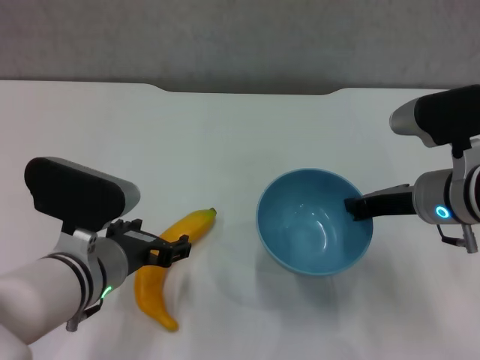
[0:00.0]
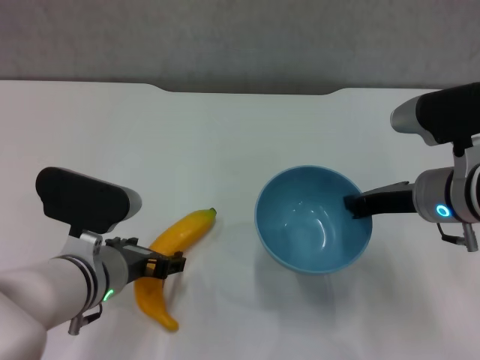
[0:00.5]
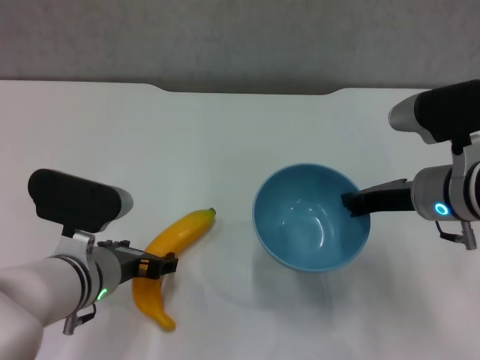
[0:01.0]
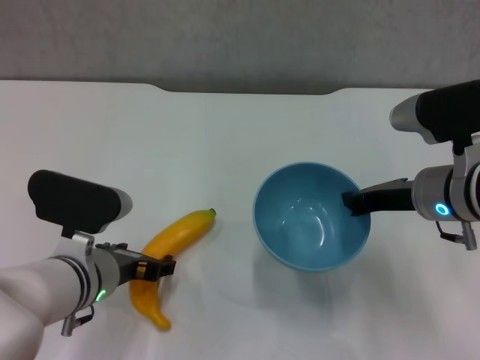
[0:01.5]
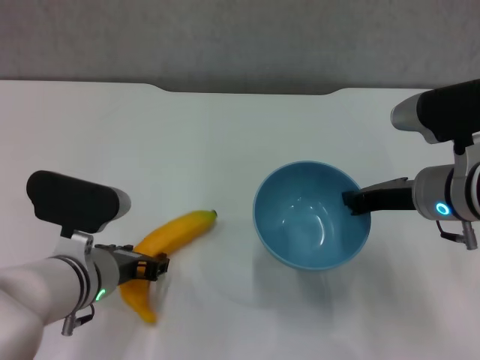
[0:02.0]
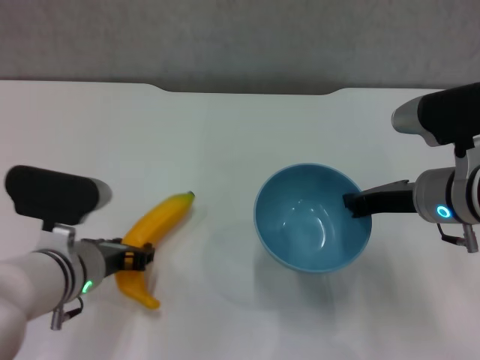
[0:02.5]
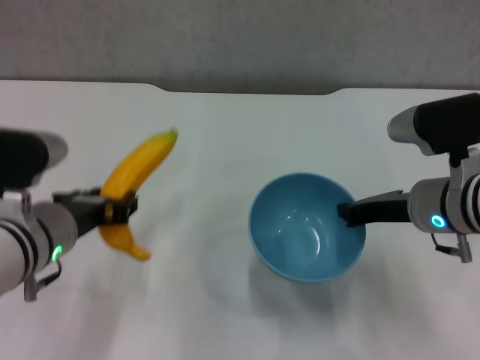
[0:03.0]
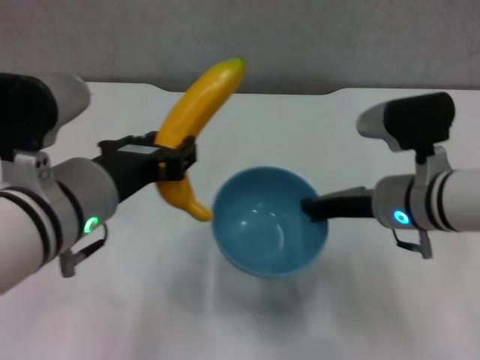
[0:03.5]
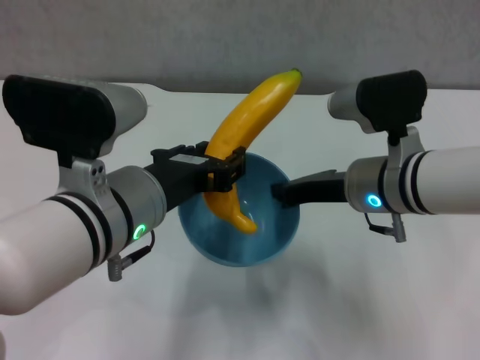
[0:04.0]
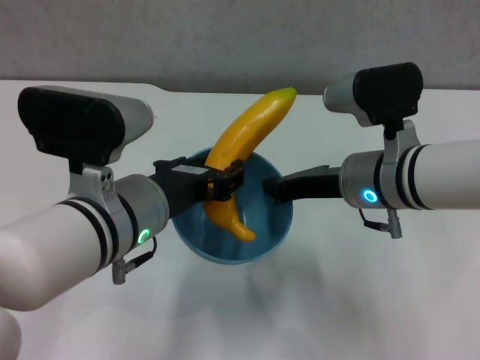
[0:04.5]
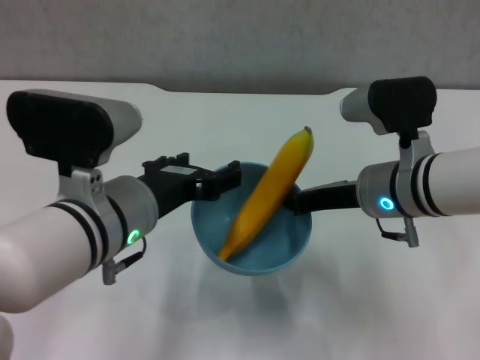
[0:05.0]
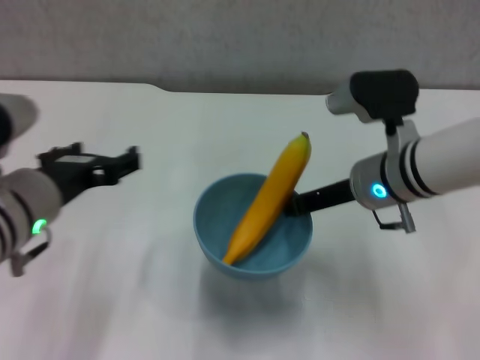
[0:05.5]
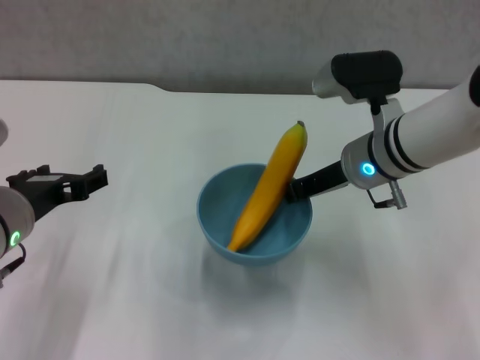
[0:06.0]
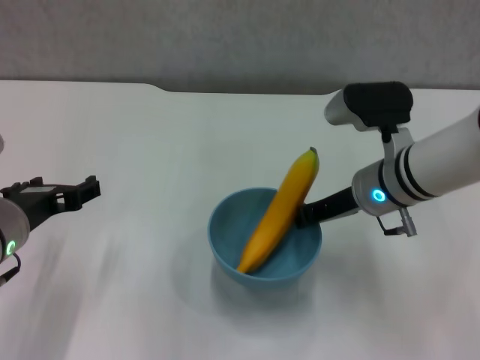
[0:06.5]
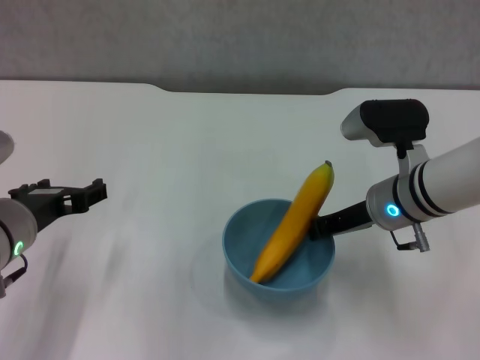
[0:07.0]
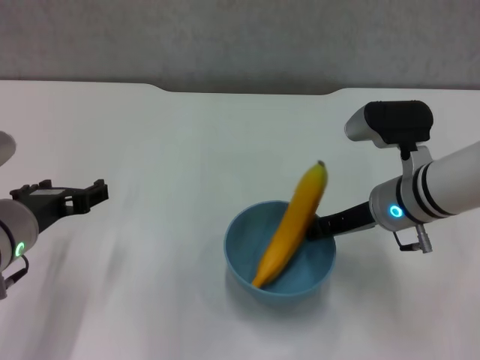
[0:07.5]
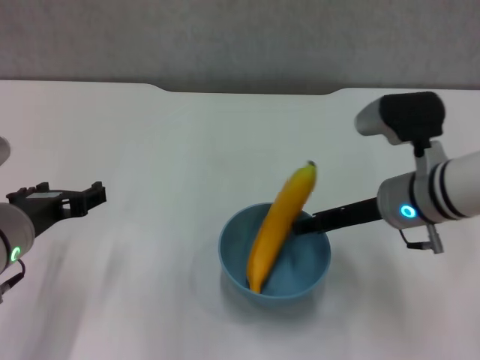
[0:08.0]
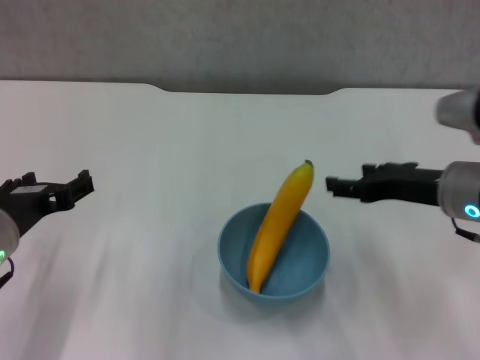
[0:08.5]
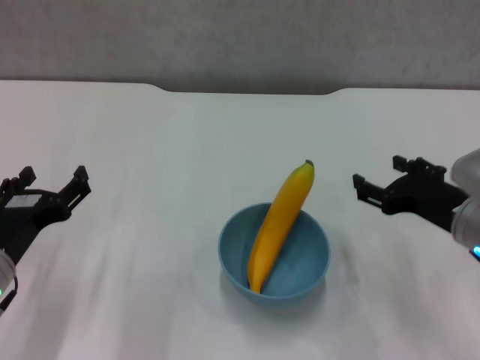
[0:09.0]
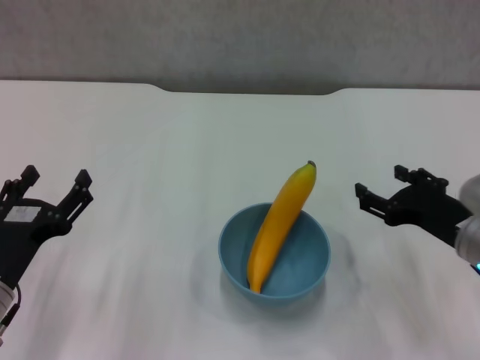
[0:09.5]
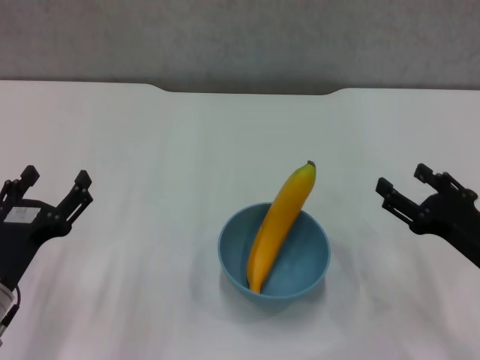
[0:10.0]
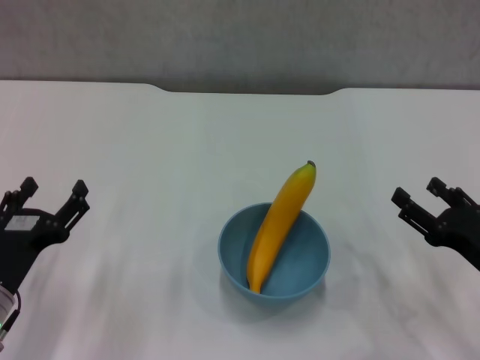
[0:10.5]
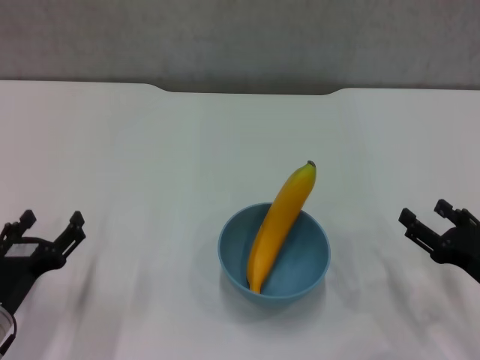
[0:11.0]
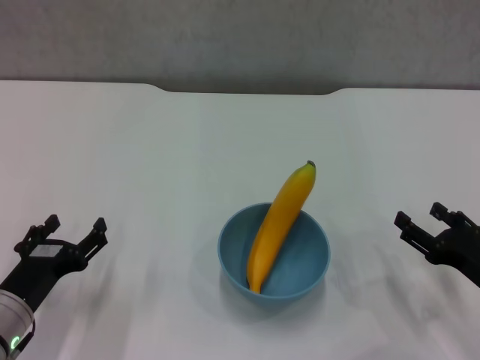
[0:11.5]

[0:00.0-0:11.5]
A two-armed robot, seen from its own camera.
Step, 0:00.0 to 0:02.0: Grasp the banana with left gripper.
Step, 0:02.5 to 0:04.5: Place the banana in the blue bowl with left gripper.
Step, 0:05.0 to 0:08.0: Place the bowl on the table with right gripper.
0:00.0 to 0:02.0: The grippers make only small movements.
0:02.0 to 0:04.0: The right gripper moves to the left, approximately 5 cm. The left gripper moves upward and to the right, some 15 cm, and closes its fingers.
0:04.0 to 0:06.0: The left gripper is displaced to the left by about 10 cm, and opens up. Meanwhile the right gripper is displaced forward by some 5 cm.
0:06.0 to 0:07.5: The right gripper ends up approximately 5 cm from where it was.
0:07.5 to 0:09.5: The right gripper moves backward and to the right, some 10 cm, and opens its fingers, while the left gripper moves downward and backward, approximately 10 cm.
0:09.5 to 0:11.5: The right gripper moves downward and to the right, roughly 10 cm.
